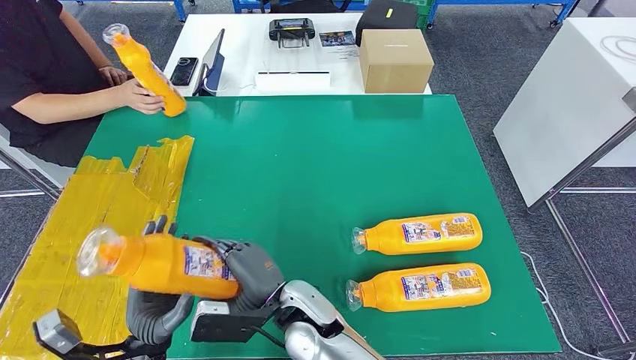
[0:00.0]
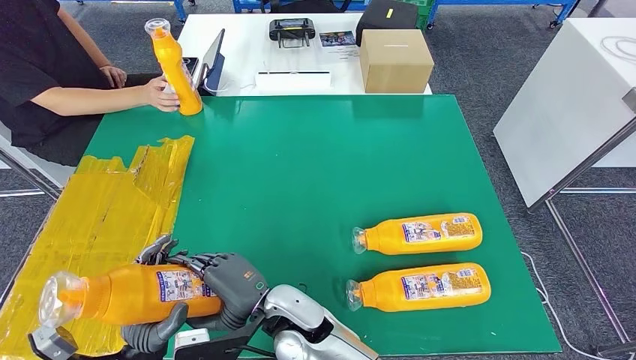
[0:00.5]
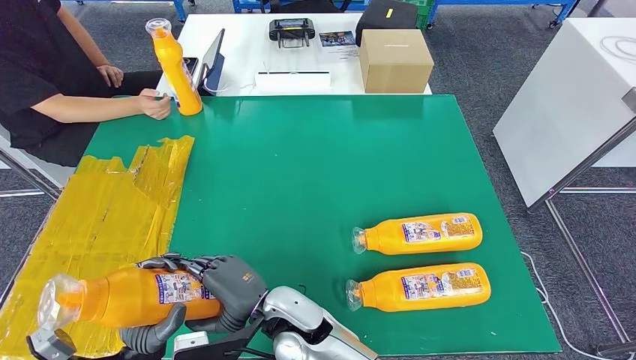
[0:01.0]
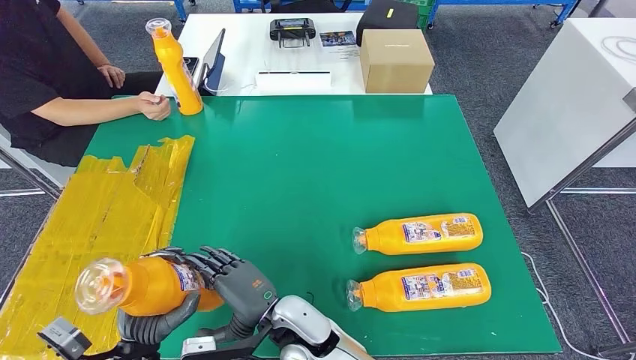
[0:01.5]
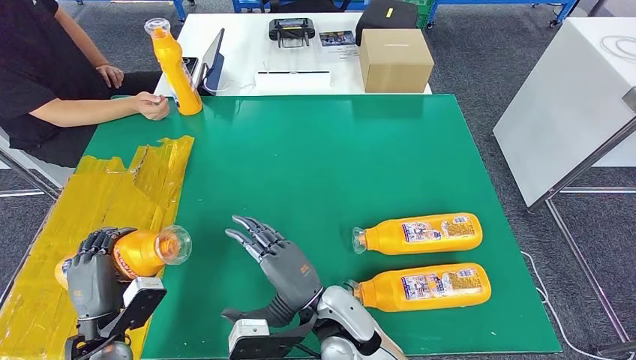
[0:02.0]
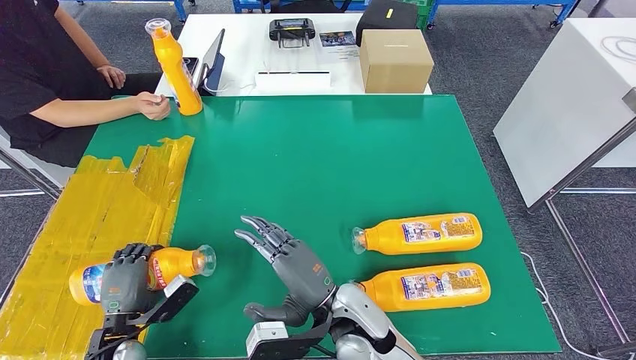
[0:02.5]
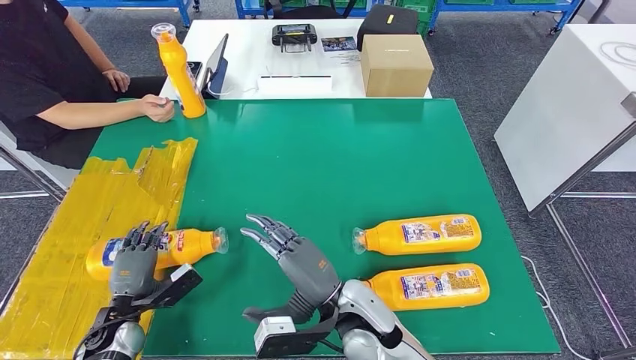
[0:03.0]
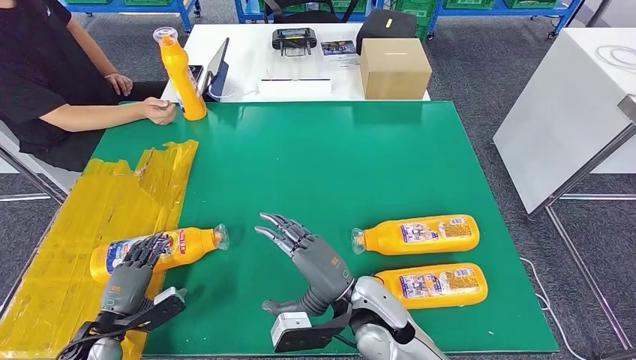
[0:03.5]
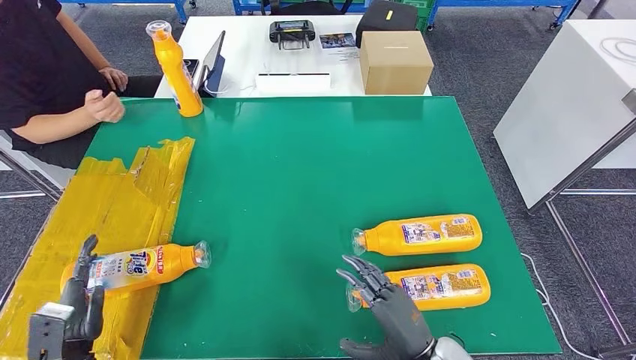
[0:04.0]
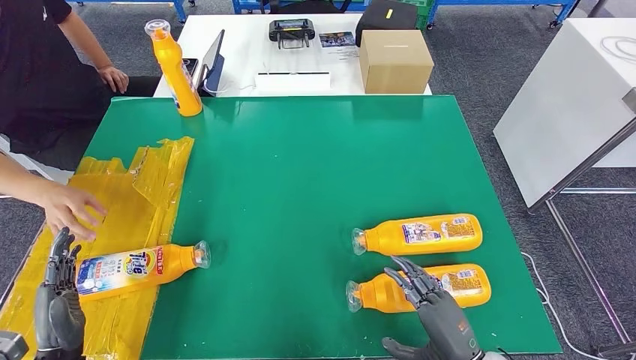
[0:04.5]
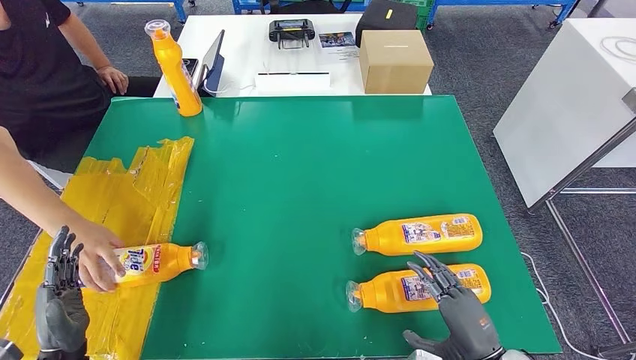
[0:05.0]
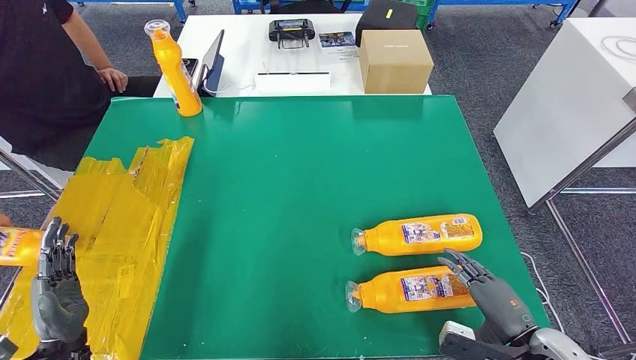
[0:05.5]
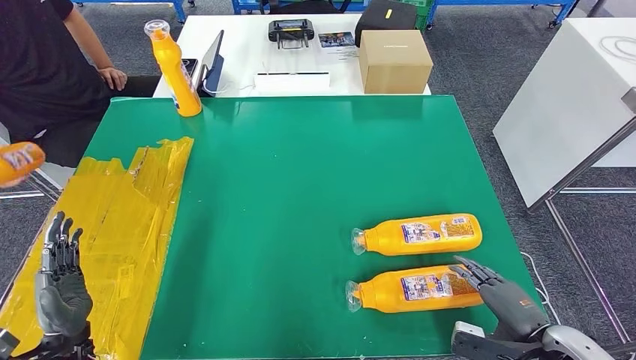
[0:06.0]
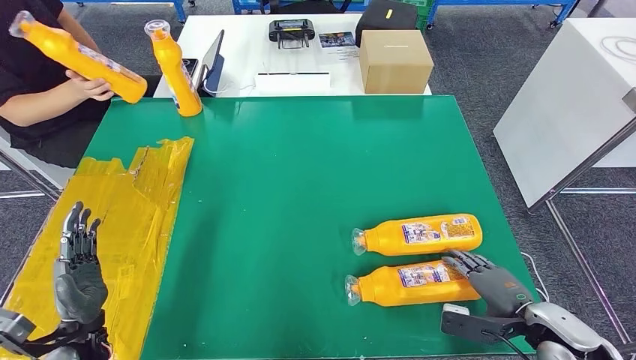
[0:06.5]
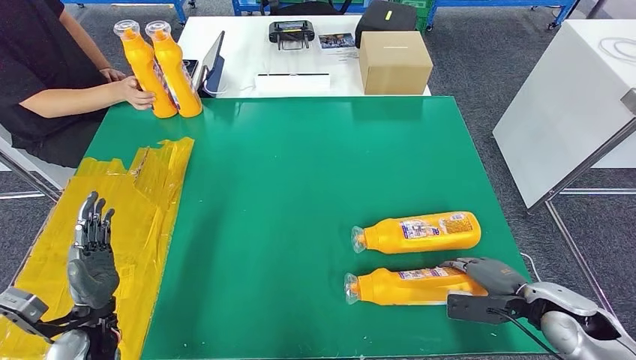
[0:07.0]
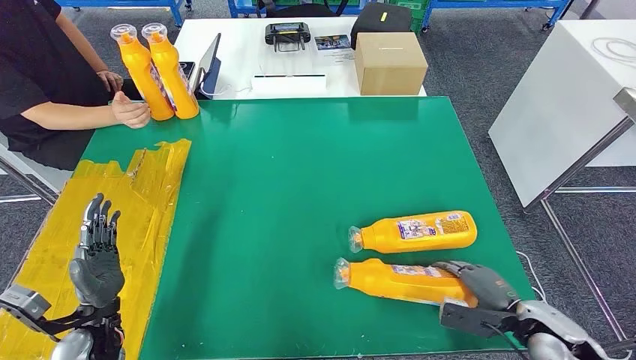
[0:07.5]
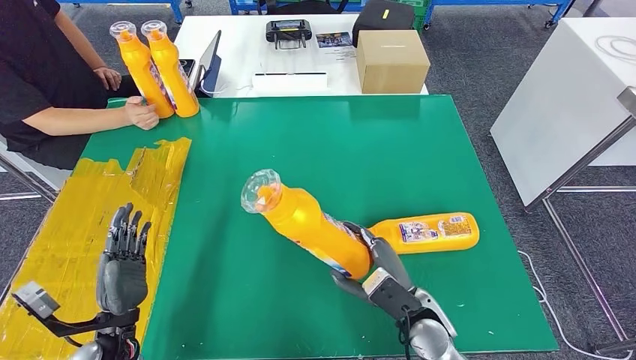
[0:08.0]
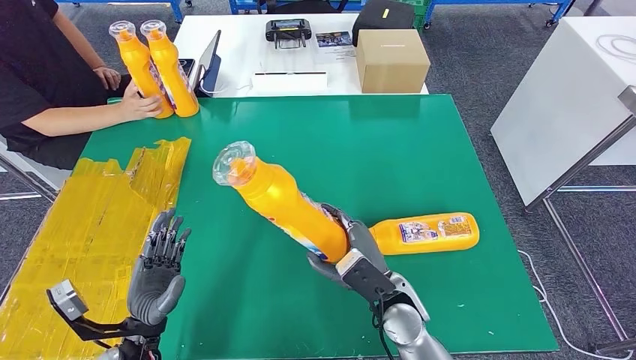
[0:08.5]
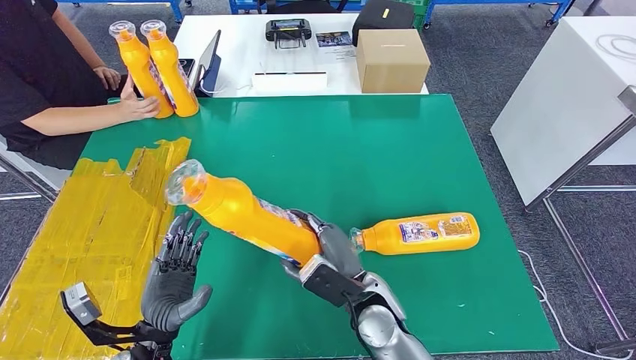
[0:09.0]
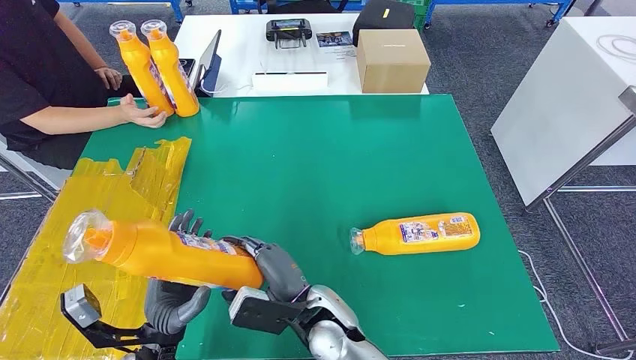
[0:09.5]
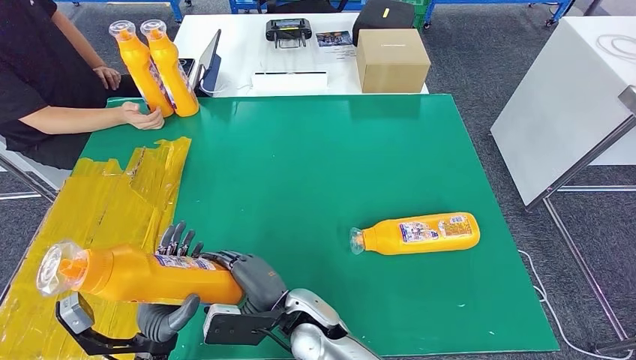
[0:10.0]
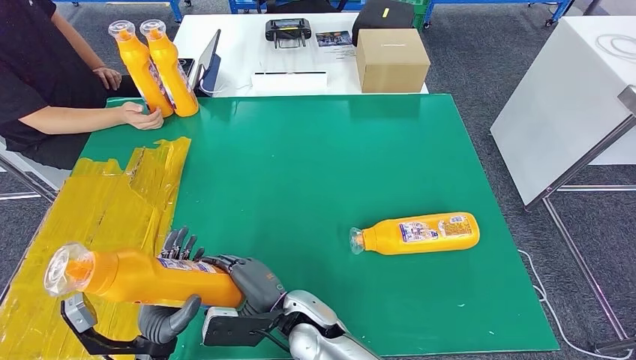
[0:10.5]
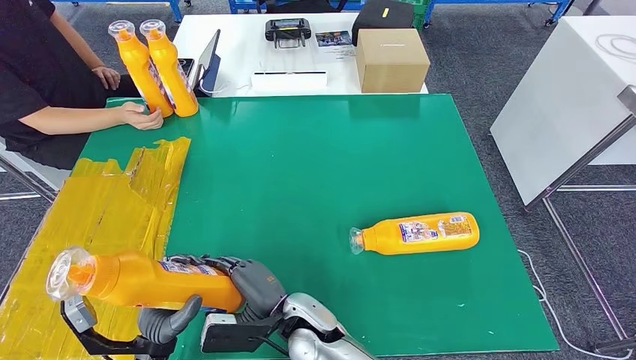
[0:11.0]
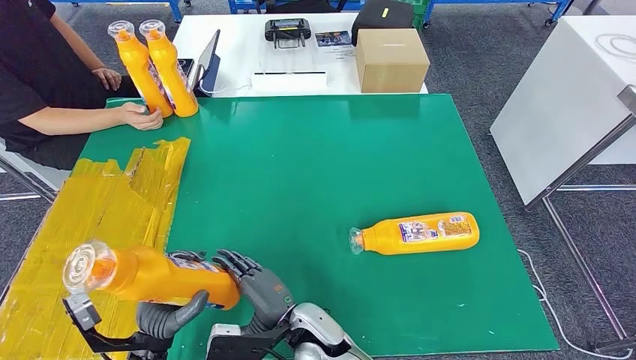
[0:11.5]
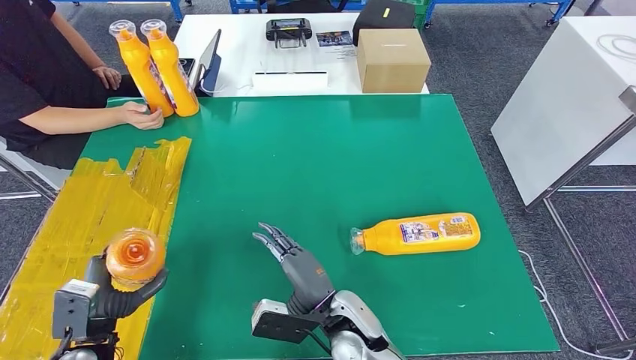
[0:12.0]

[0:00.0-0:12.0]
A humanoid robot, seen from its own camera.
Step, 0:01.0 to 0:04.0: Flip the fast-moving consumer goods bottle to the front side.
Step, 0:04.5 to 0:08.5: Pick up the fast-moving consumer goods bottle from the table.
0:00.0 to 0:02.0: The right hand moves to the right, some 5 cm, while the left hand heads to the left, covering about 10 cm.
0:04.0 to 0:06.0: The left hand travels upward by about 5 cm. Meanwhile the right hand is displaced to the right by approximately 20 cm.
0:08.0 to 0:10.0: The right hand heads to the left, covering approximately 20 cm, while the left hand is displaced to the right by approximately 5 cm.
0:10.0 to 0:12.0: The right hand shifts some 5 cm to the right. Meanwhile the left hand moves to the left, roughly 10 cm.

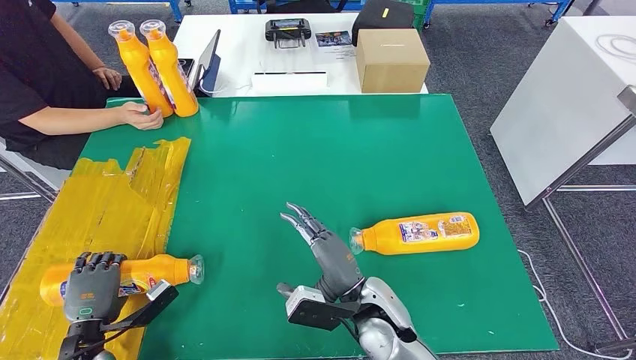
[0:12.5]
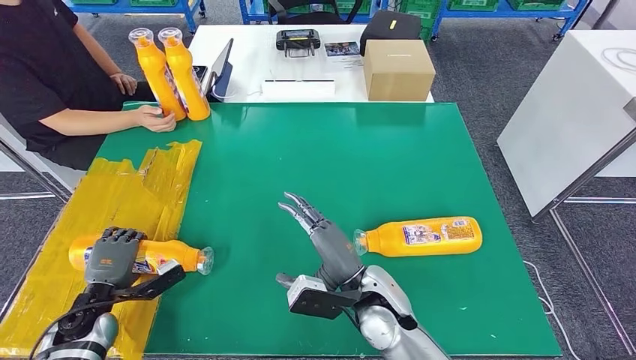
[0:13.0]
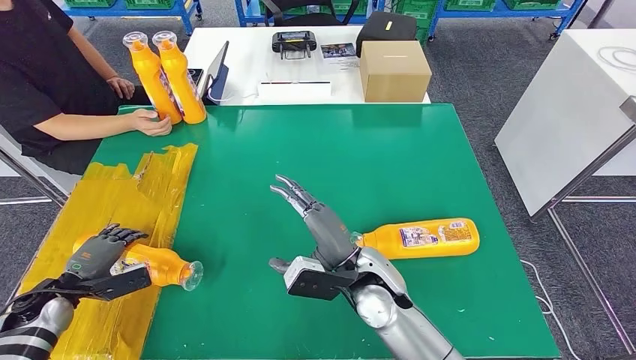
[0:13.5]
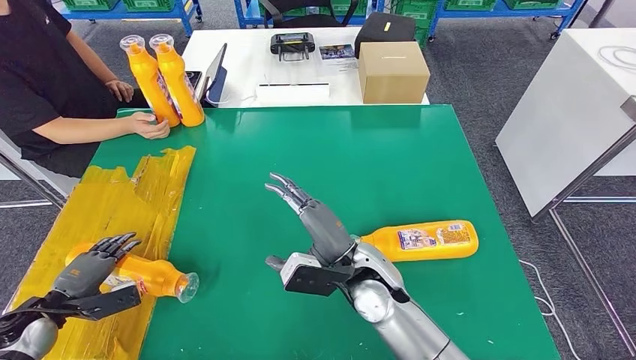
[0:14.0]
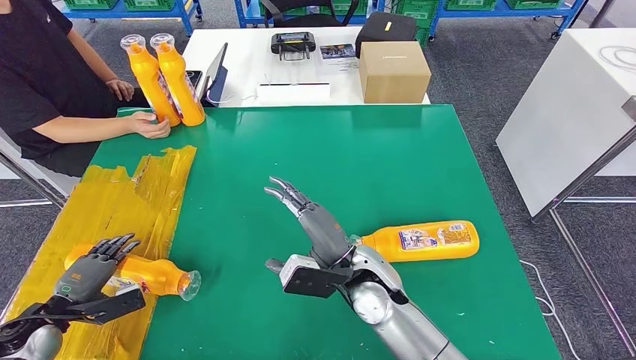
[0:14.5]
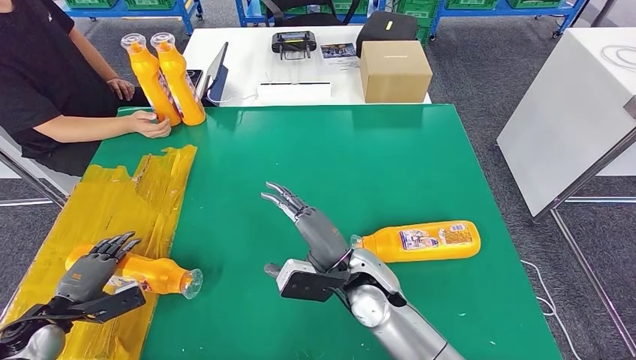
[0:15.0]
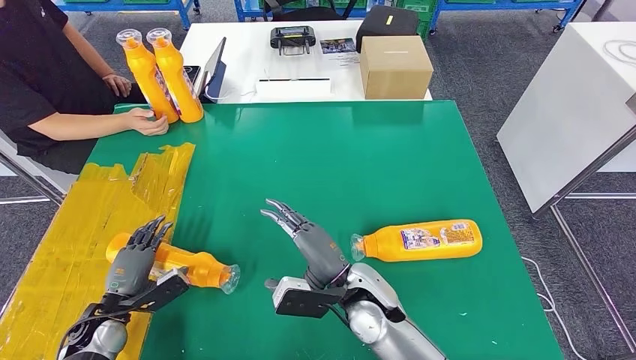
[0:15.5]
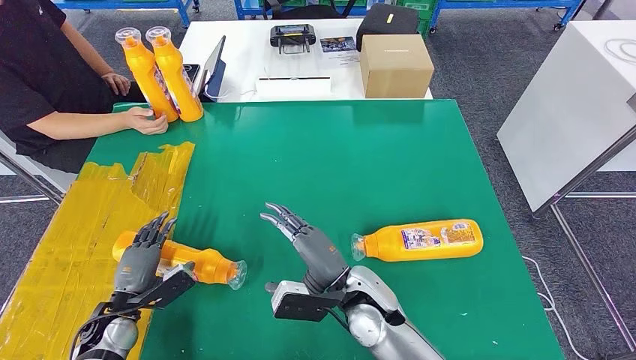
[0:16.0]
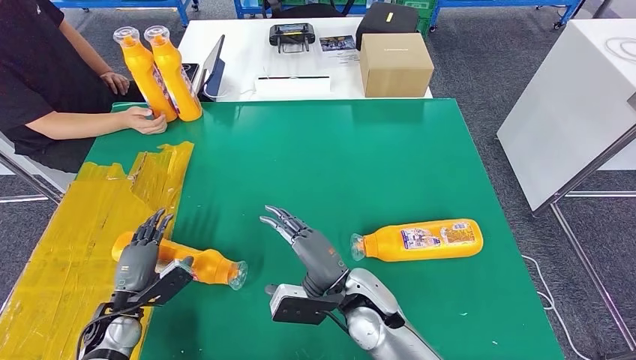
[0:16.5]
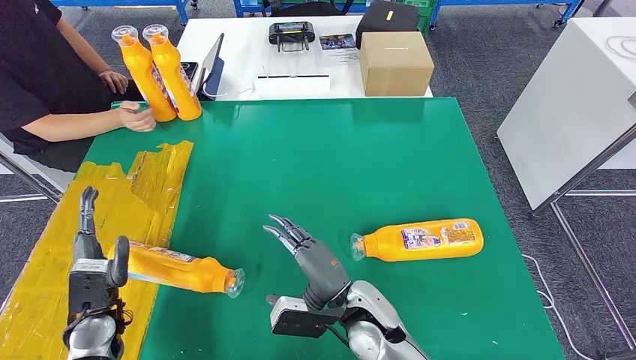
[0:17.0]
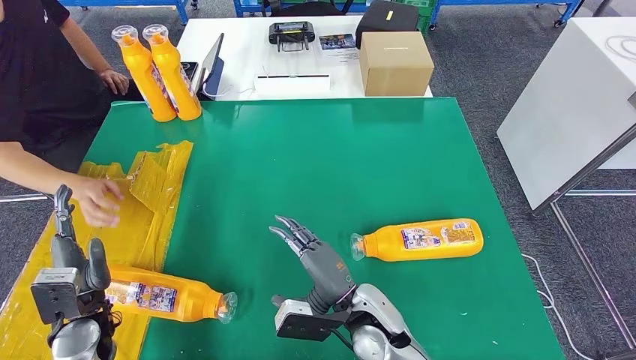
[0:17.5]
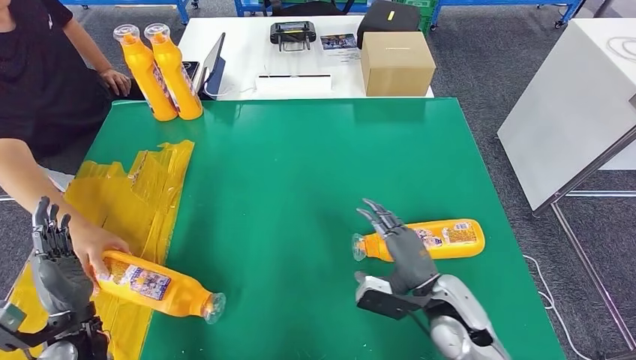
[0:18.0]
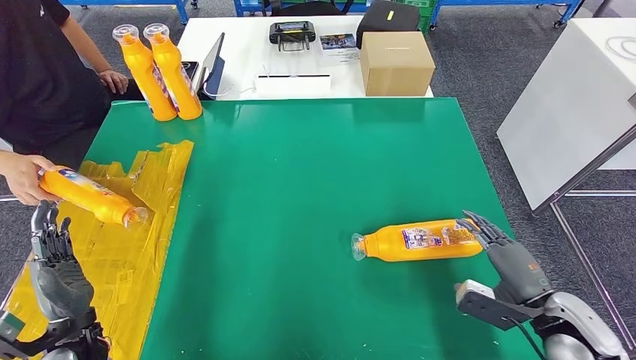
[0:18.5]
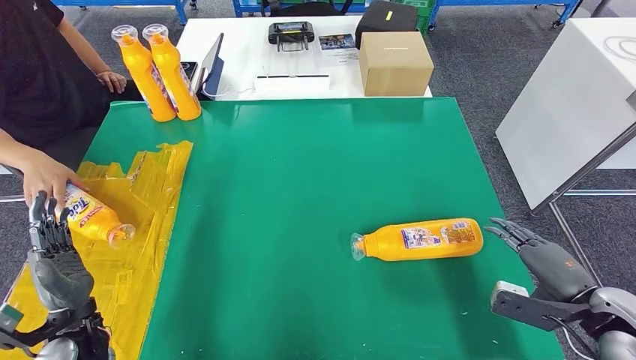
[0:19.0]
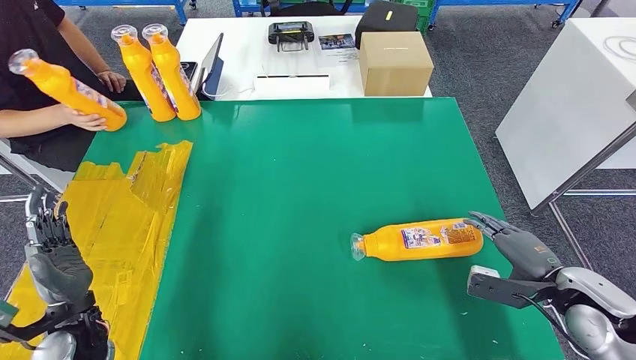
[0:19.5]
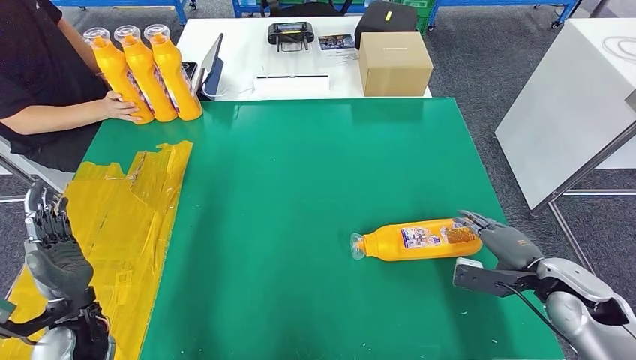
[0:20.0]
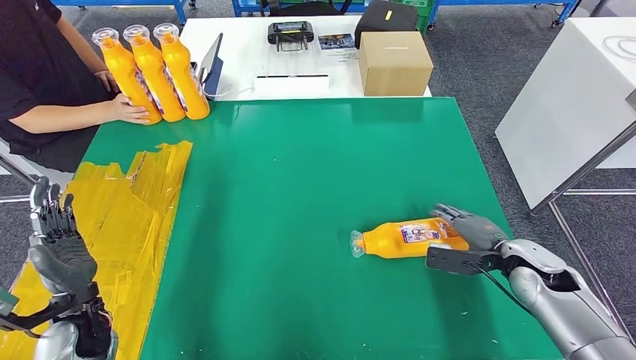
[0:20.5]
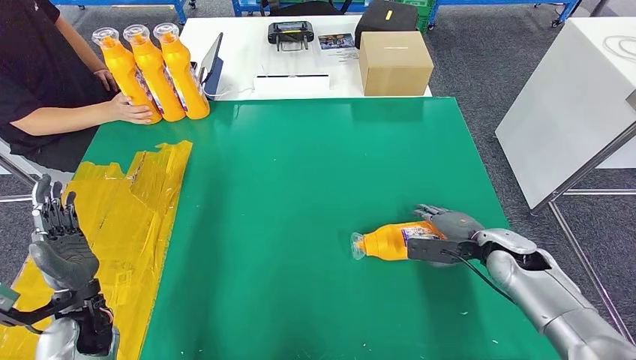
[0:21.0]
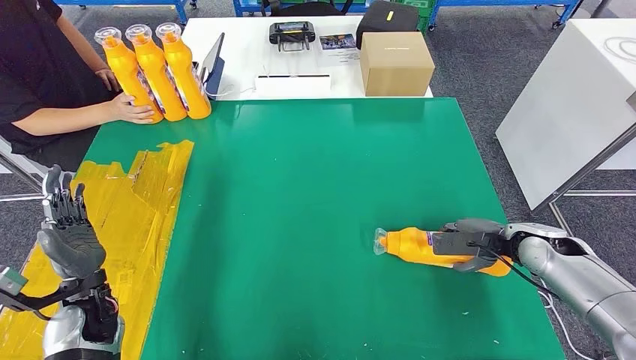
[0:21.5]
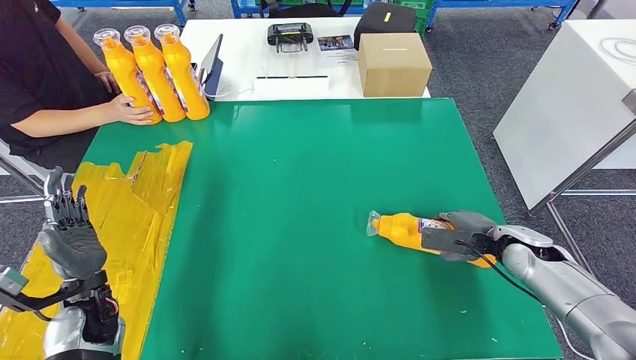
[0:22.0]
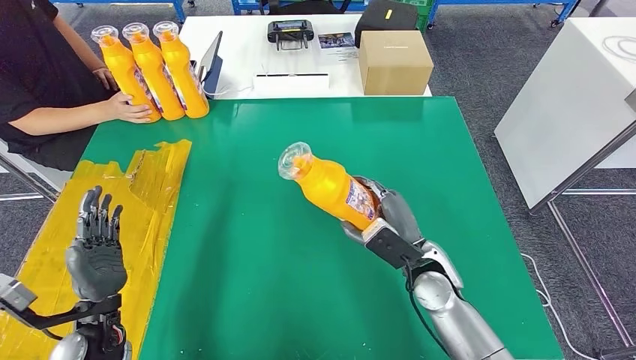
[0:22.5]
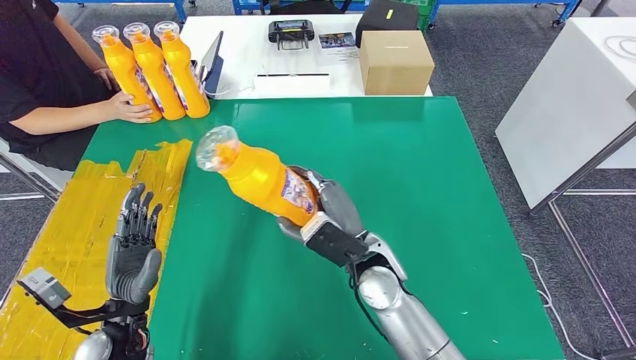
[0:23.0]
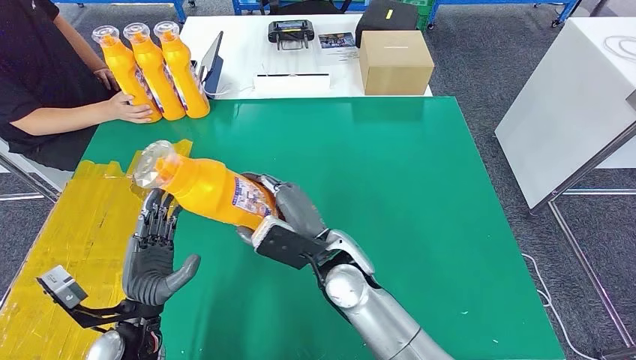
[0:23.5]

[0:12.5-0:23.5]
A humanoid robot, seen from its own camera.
0:20.0 to 0:21.5: The right hand moves forward, about 10 cm.
